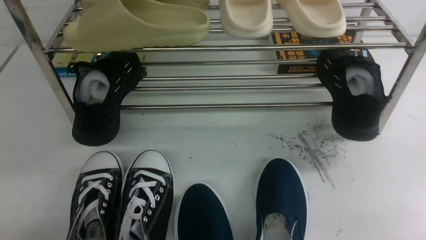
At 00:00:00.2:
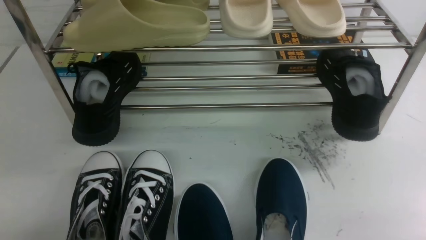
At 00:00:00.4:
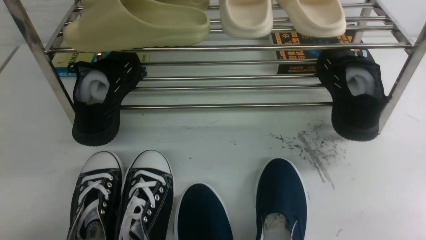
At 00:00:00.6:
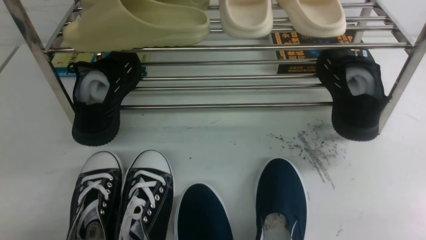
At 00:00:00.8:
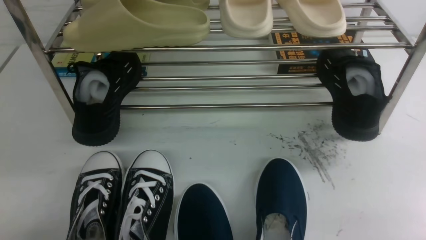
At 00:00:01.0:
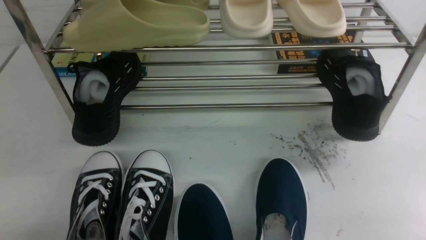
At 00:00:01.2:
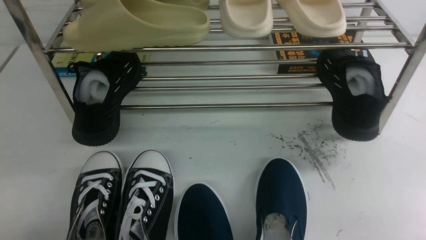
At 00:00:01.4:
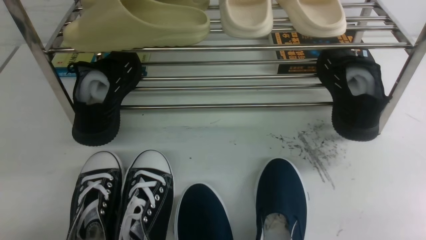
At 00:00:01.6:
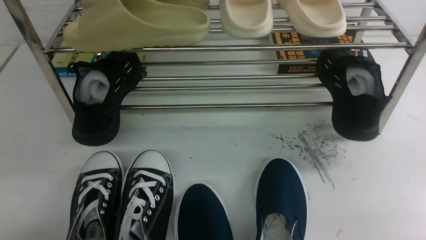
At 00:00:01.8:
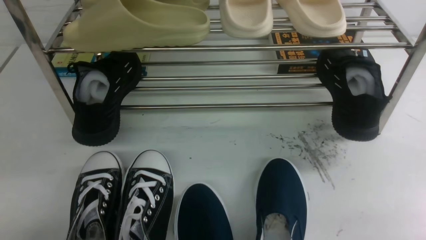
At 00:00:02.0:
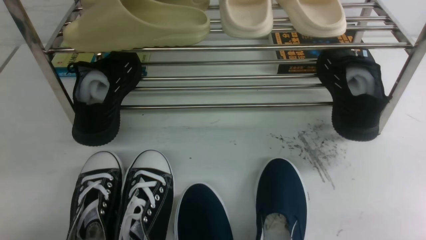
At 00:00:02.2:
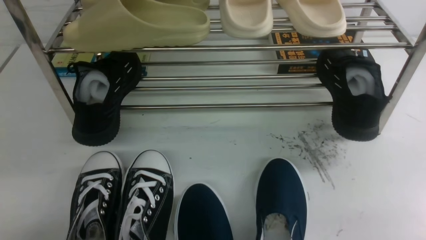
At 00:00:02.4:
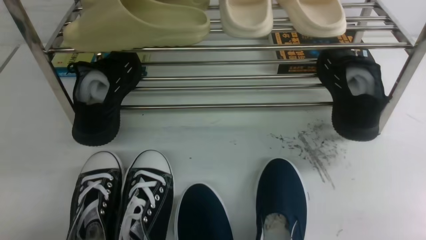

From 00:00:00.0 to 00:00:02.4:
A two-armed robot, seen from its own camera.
From 00:00:00.0 to 00:00:02.4: Both grippers stay about where they are.
